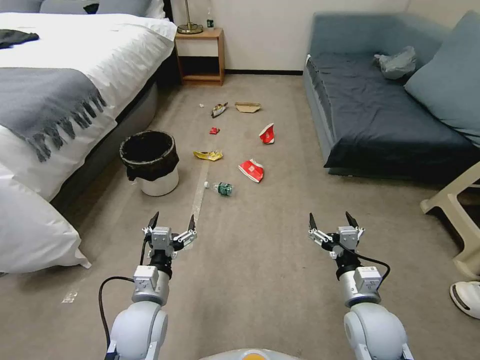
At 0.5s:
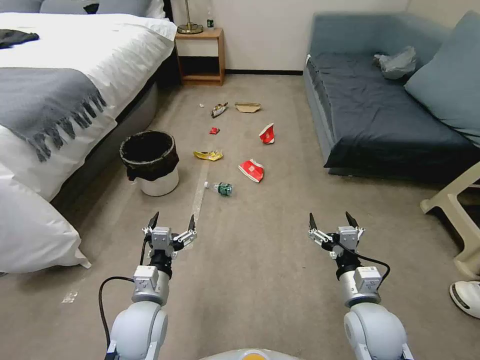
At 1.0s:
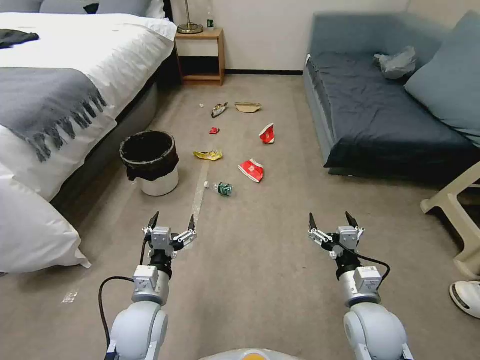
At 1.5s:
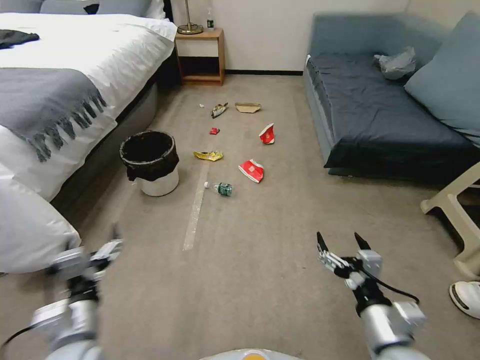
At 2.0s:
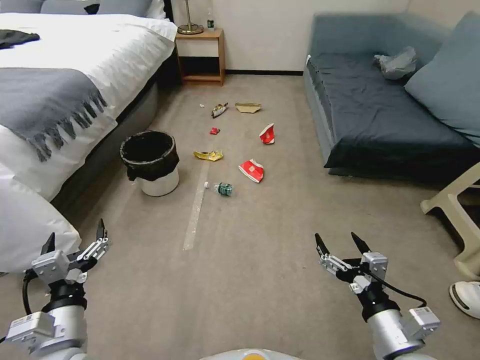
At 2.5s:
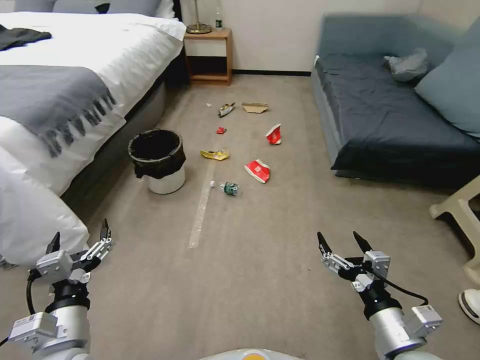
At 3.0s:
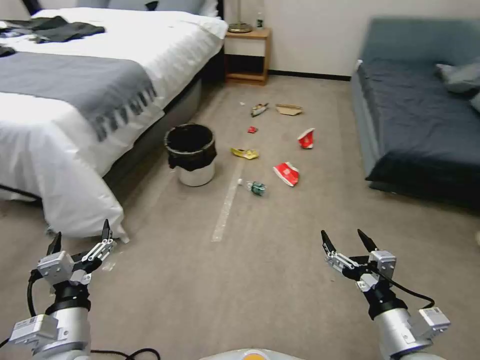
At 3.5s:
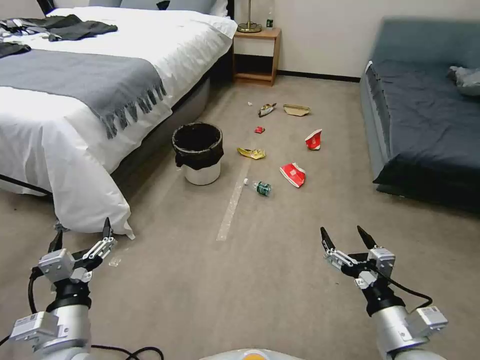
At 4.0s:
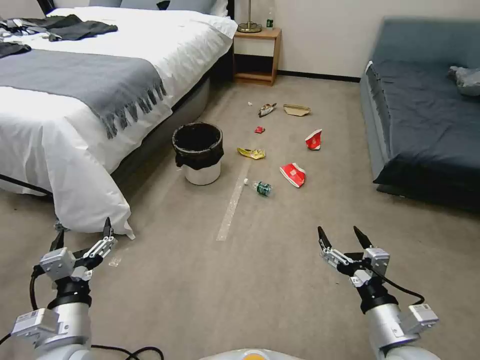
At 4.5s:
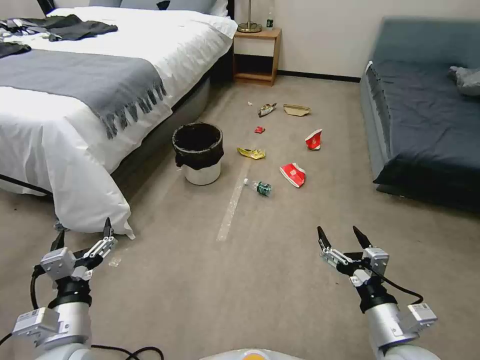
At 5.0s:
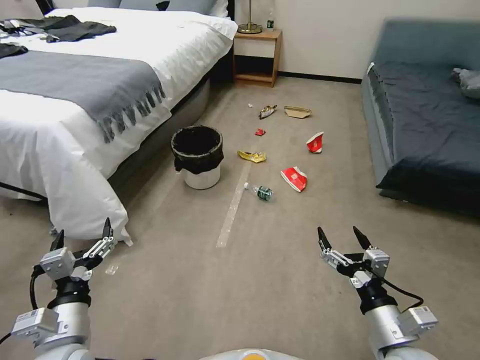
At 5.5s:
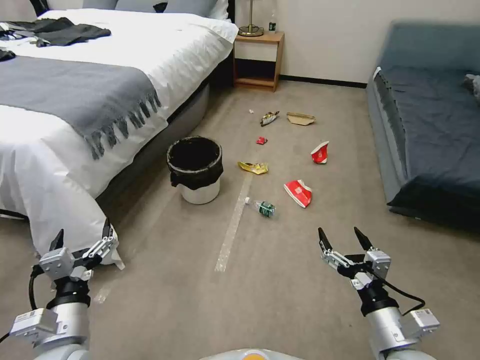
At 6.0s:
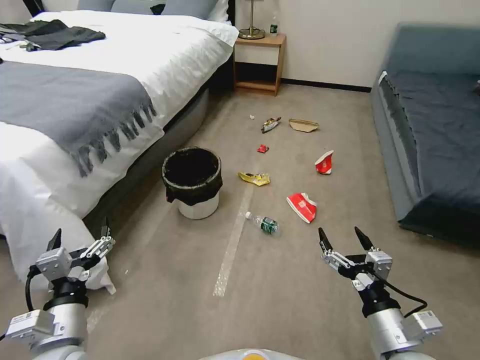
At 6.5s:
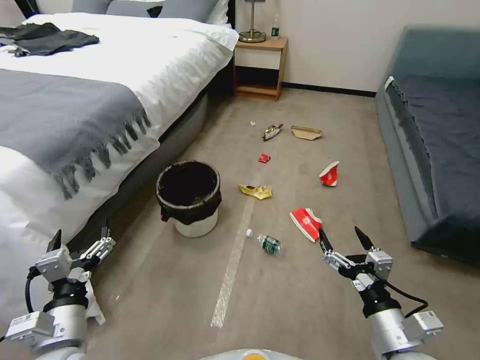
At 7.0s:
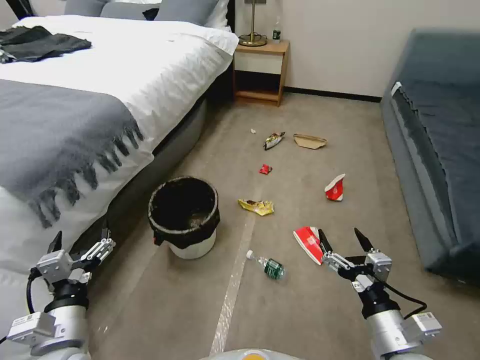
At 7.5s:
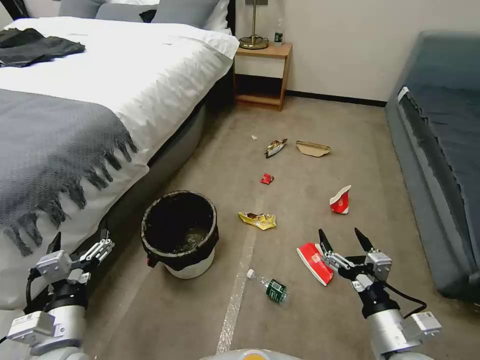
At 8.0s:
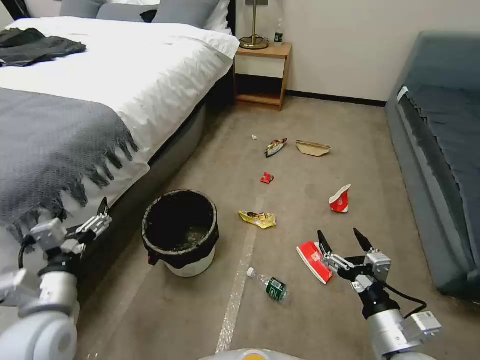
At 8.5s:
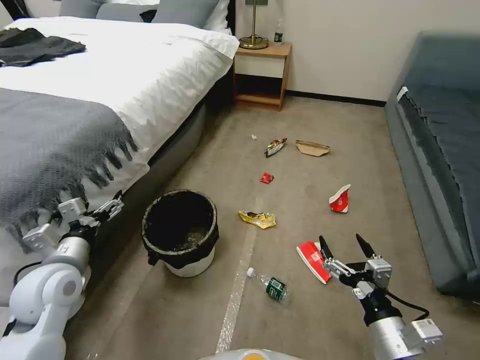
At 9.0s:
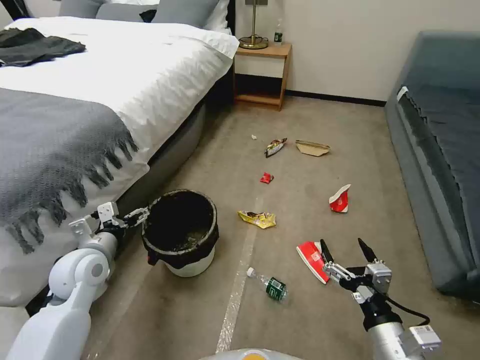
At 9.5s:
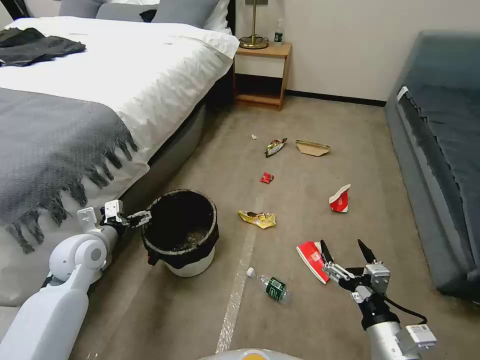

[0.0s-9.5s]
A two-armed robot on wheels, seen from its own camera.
Task of the whole recording: Pick up the trash can from the floor.
7.5s to 9.5s: The left gripper shifts some 20 cm forward.

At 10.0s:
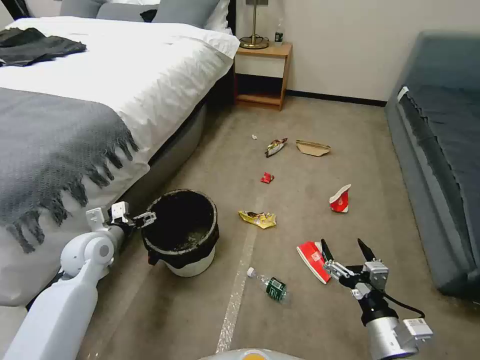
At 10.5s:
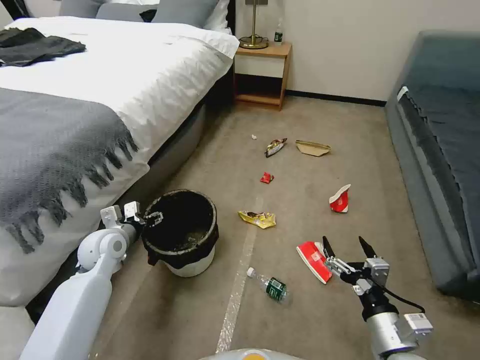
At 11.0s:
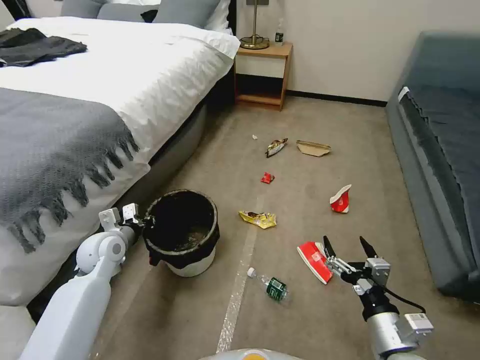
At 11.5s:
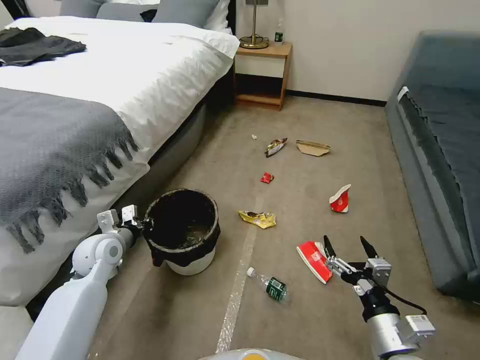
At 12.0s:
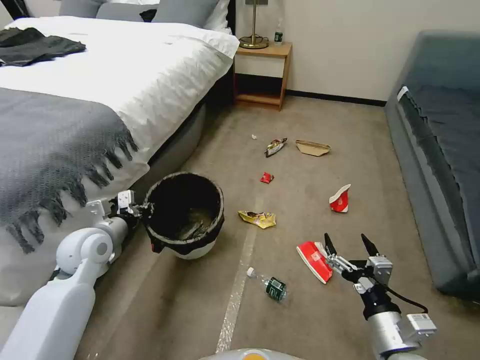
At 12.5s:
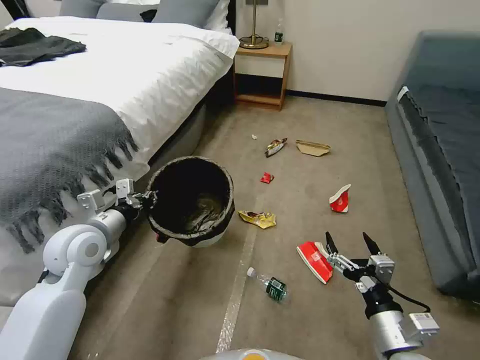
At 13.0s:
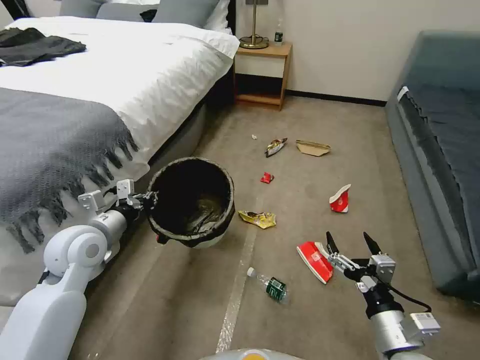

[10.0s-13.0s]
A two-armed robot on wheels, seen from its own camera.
Task of the whole recording: Pick up the trash can from the floor.
10.0s to 11.5s: The left gripper closes.
11.5s to 13.0s: The left gripper heads upward, covering roughly 10 cm.

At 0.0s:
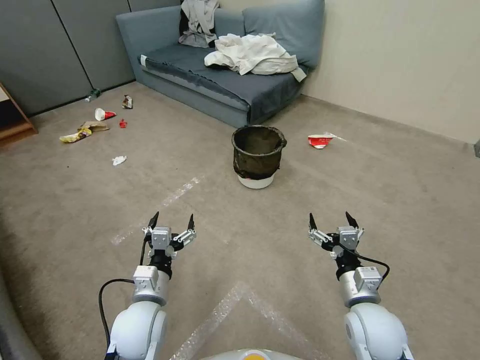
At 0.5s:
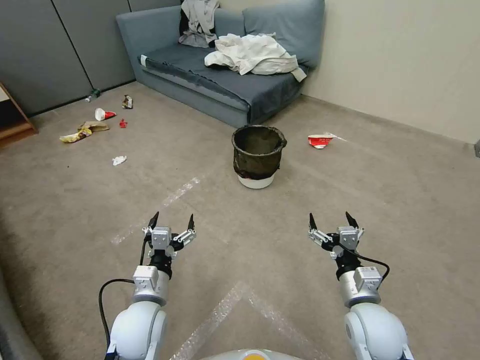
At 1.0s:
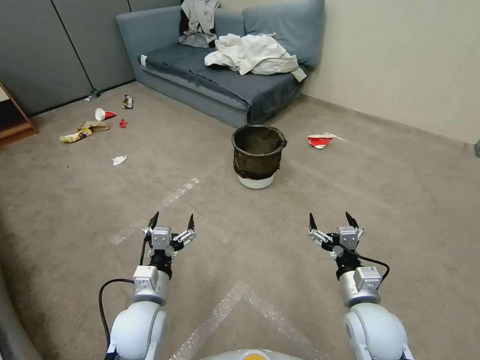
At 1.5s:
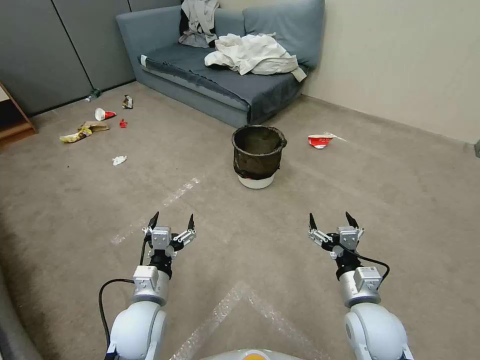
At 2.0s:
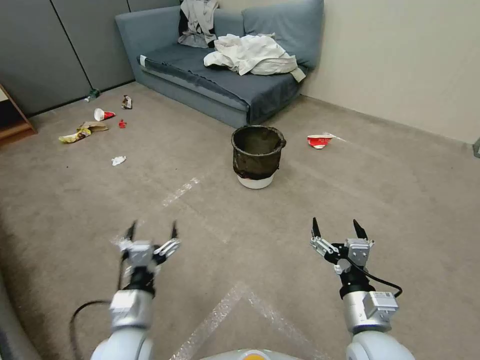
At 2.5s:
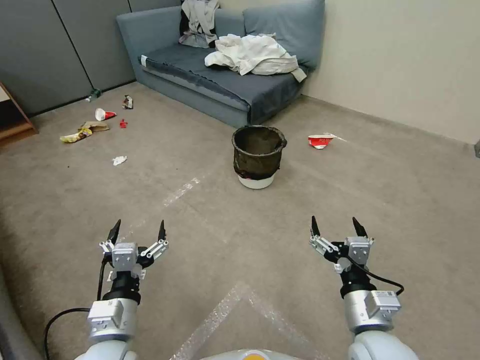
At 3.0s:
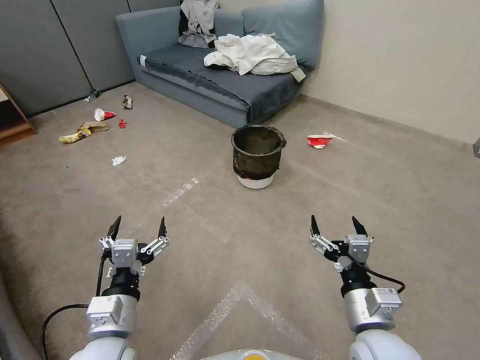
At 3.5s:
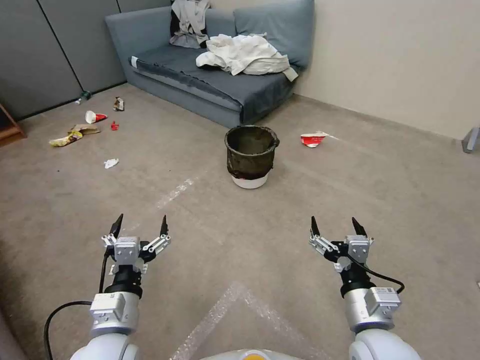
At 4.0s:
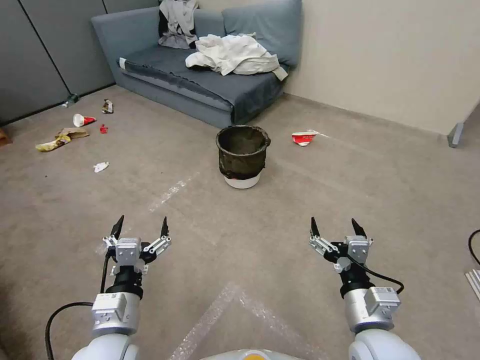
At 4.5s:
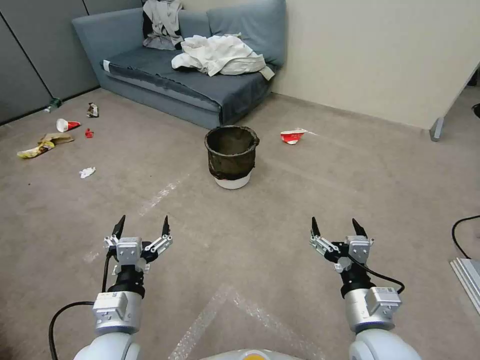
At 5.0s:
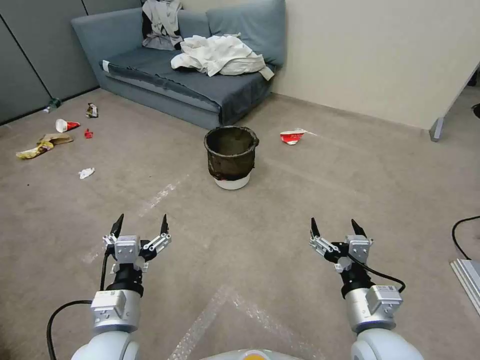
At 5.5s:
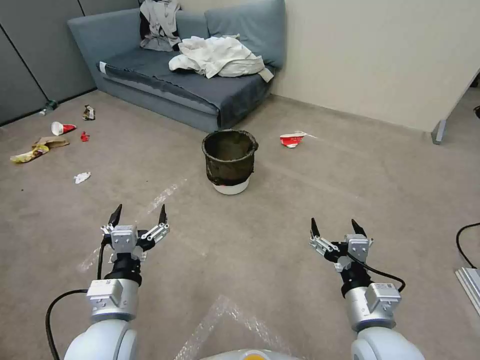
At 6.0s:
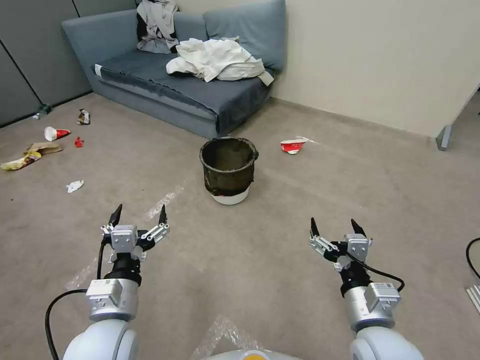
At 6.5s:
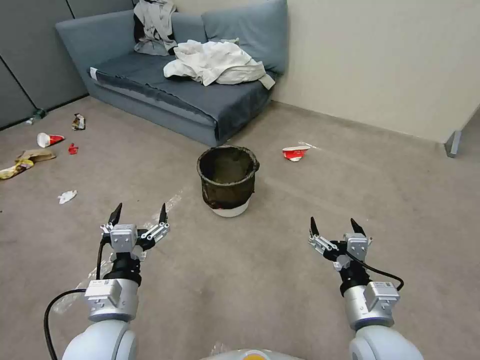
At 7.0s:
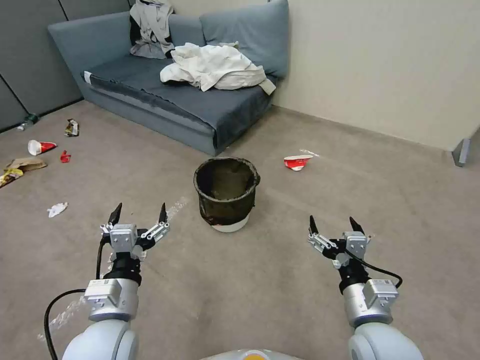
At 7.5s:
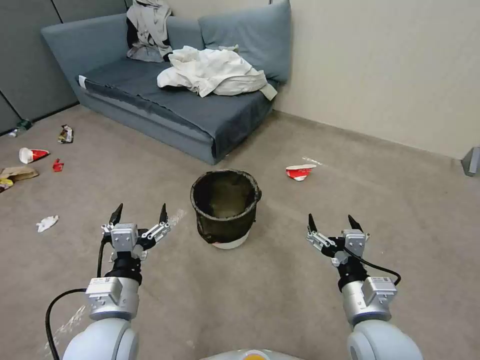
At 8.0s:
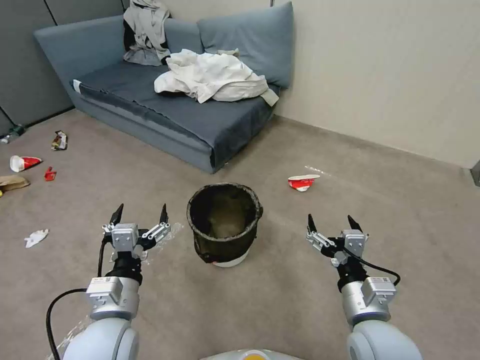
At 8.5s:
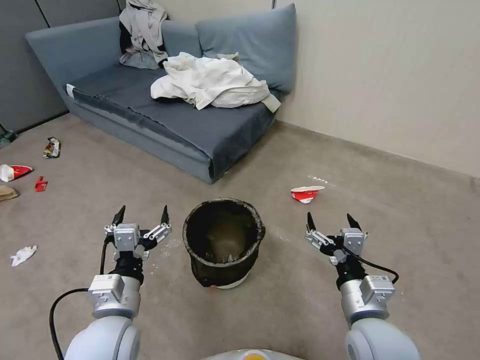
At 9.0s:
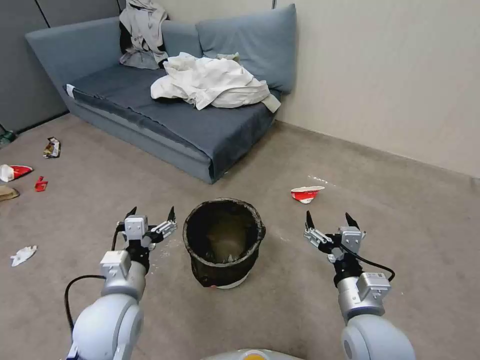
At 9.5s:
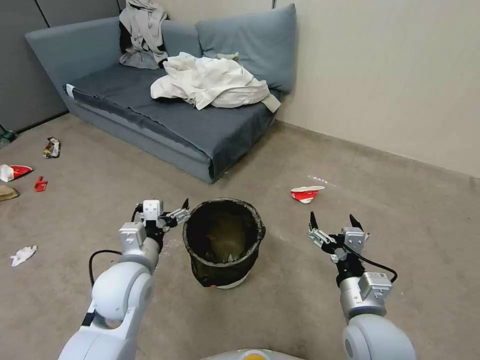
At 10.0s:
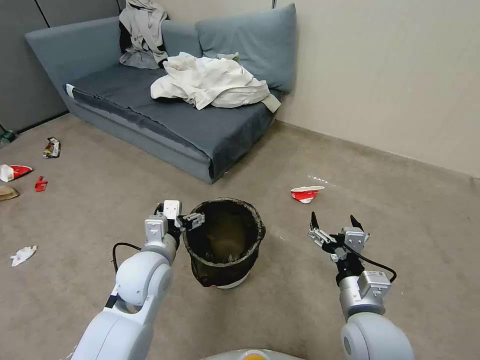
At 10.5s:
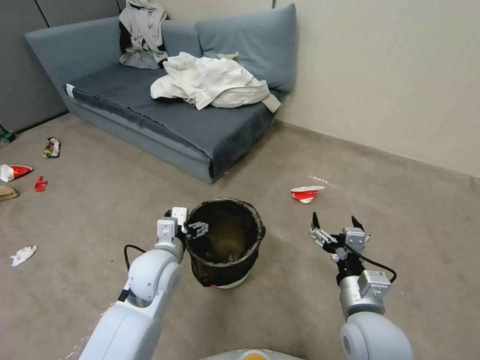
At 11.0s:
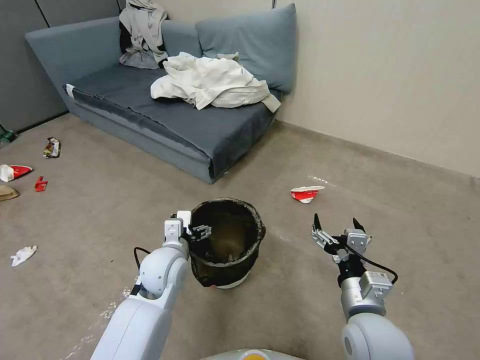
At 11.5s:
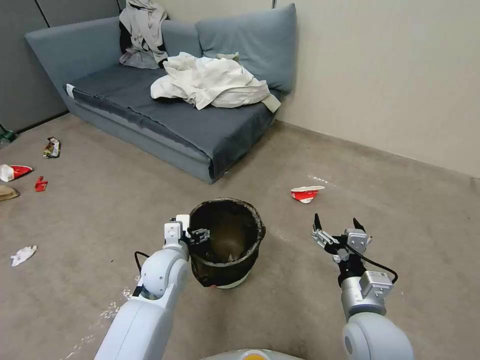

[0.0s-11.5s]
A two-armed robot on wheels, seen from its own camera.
Task of the whole recording: Pick up the trash can from the floor.
2.0s to 6.0s: There are only small adjustments of the grippers.
7.5s to 9.5s: The left gripper travels forward by some 10 cm.
9.5s to 11.5s: The left gripper is displaced downward and forward by about 10 cm.

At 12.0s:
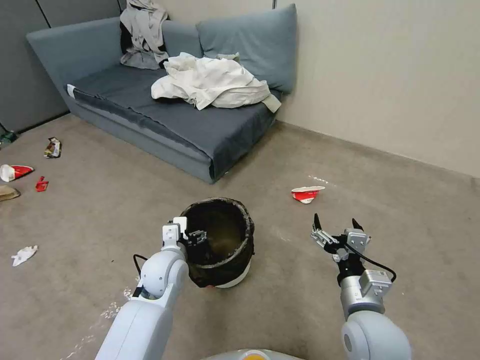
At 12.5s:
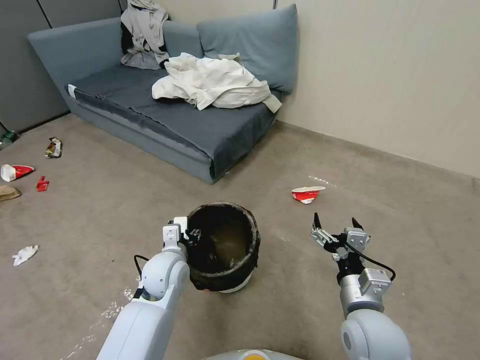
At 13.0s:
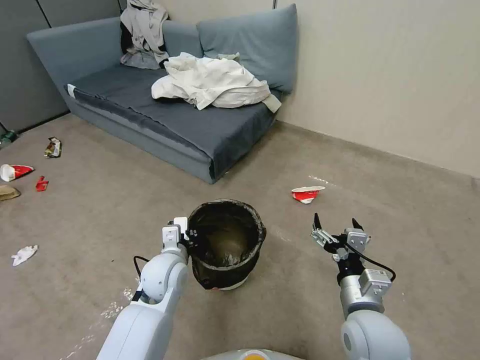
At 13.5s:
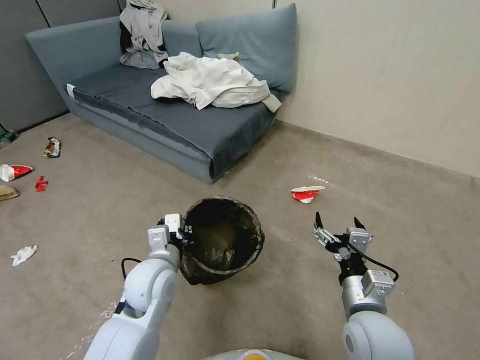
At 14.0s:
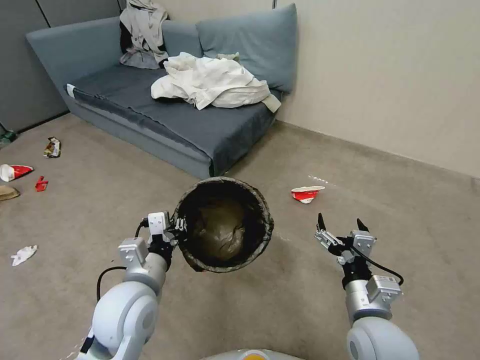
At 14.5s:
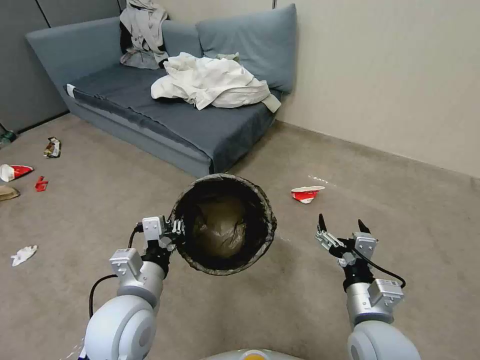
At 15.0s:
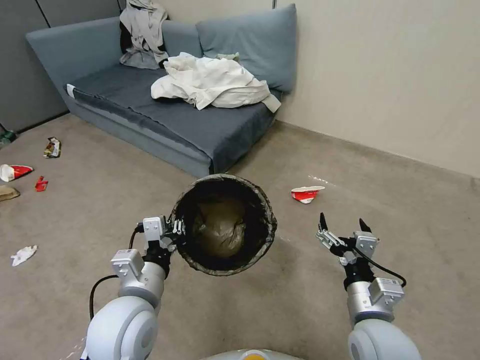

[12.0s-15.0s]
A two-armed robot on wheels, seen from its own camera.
Task of the whole recording: Pick up the trash can from the floor.
12.0s to 13.5s: The left gripper shifts by about 5 cm, and closes up.
13.5s to 15.0s: The left gripper heads backward, covering about 10 cm.
